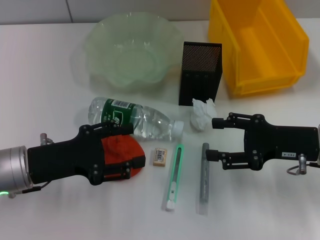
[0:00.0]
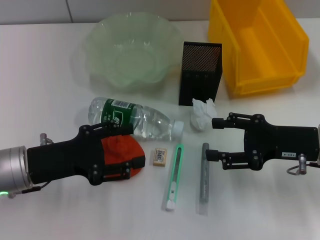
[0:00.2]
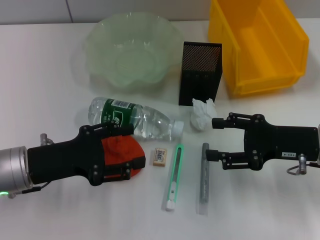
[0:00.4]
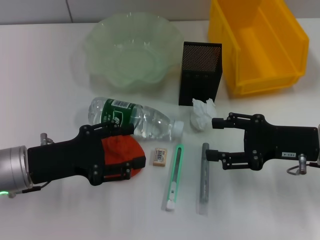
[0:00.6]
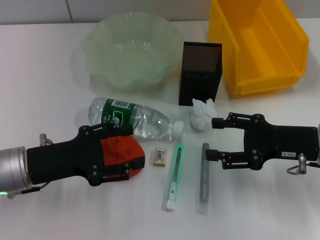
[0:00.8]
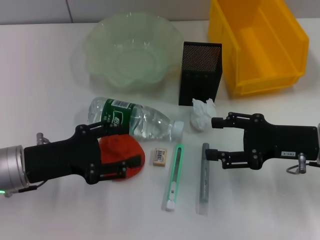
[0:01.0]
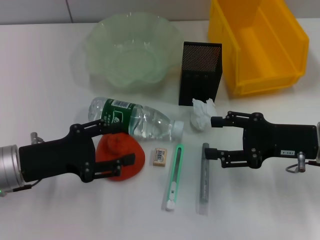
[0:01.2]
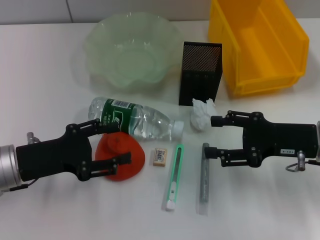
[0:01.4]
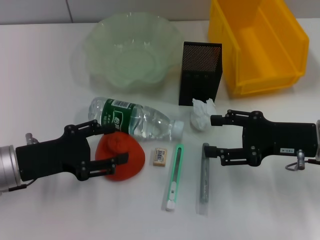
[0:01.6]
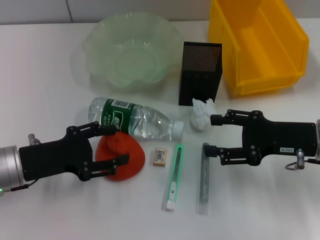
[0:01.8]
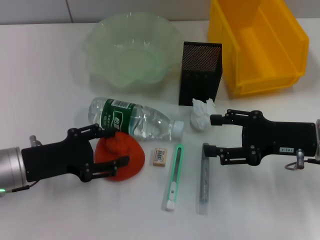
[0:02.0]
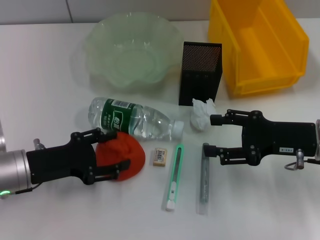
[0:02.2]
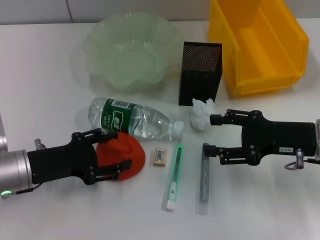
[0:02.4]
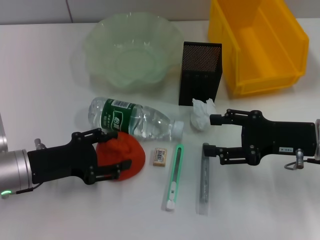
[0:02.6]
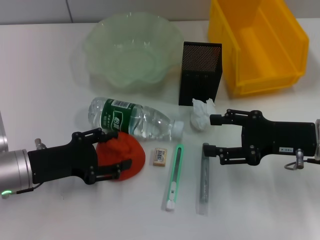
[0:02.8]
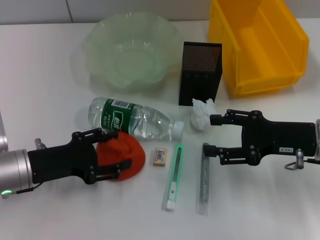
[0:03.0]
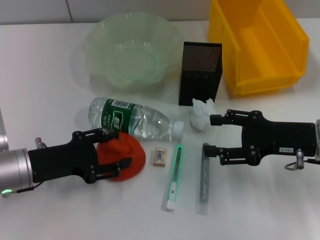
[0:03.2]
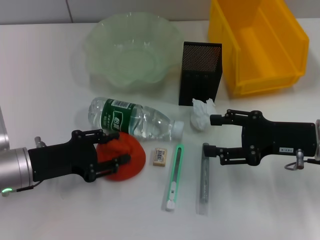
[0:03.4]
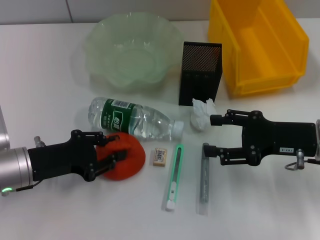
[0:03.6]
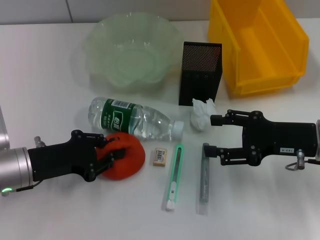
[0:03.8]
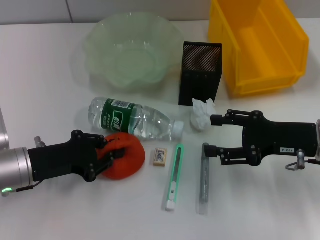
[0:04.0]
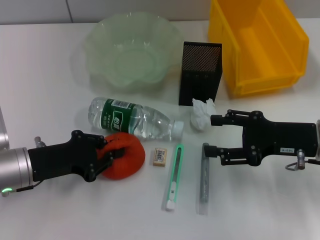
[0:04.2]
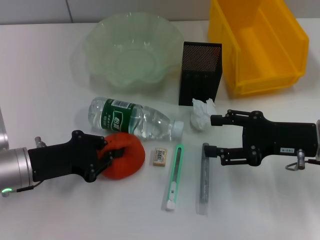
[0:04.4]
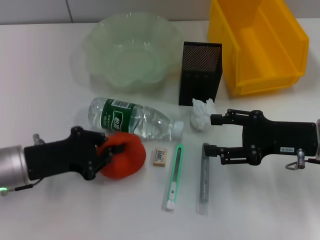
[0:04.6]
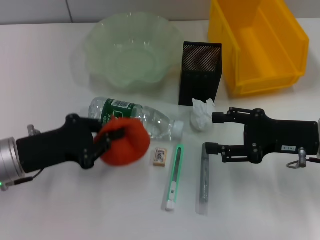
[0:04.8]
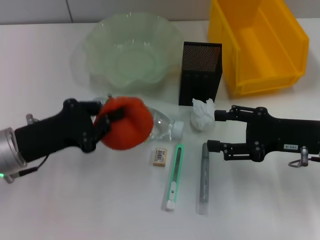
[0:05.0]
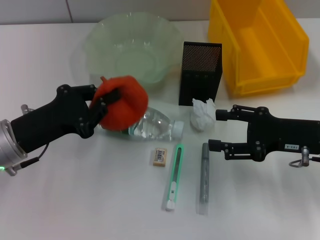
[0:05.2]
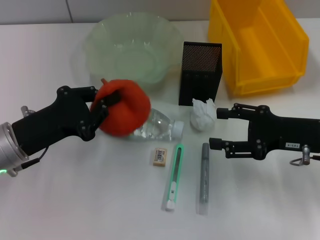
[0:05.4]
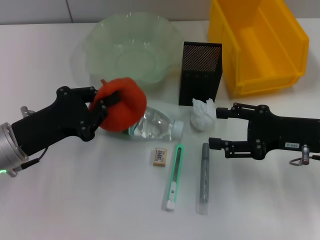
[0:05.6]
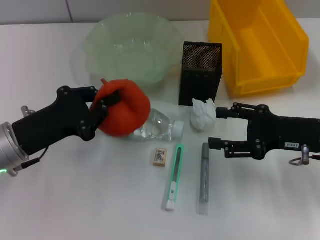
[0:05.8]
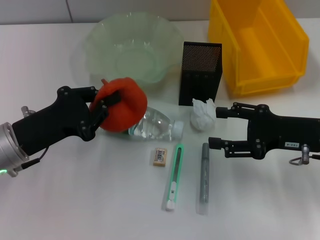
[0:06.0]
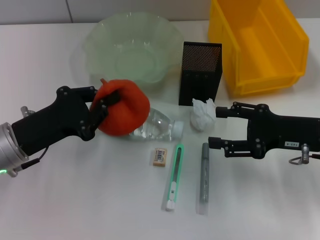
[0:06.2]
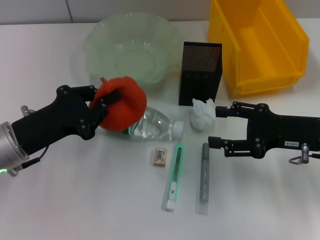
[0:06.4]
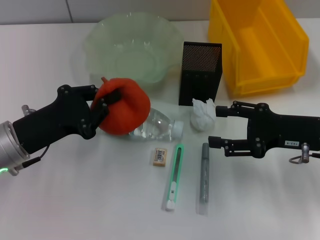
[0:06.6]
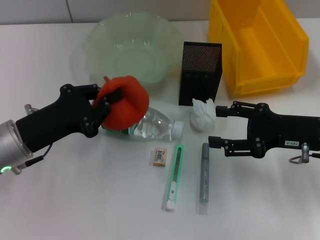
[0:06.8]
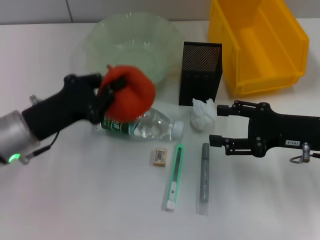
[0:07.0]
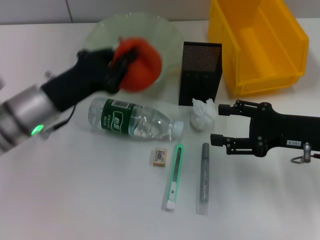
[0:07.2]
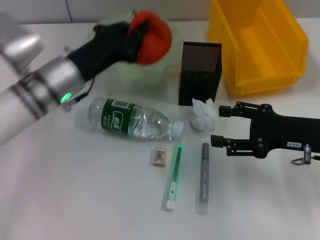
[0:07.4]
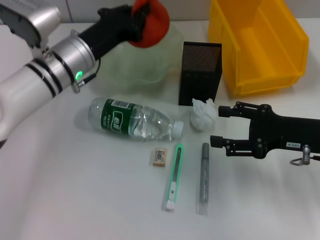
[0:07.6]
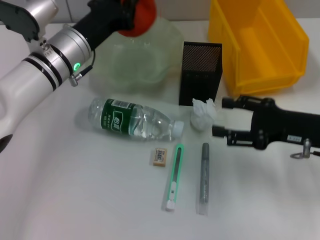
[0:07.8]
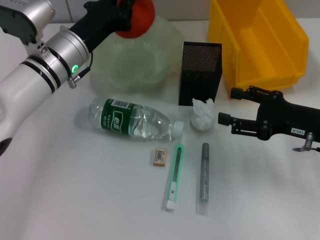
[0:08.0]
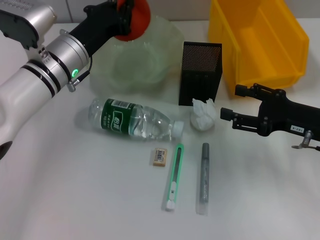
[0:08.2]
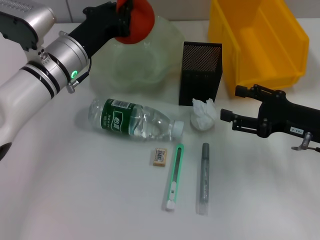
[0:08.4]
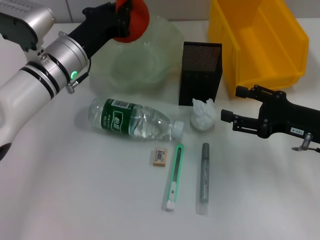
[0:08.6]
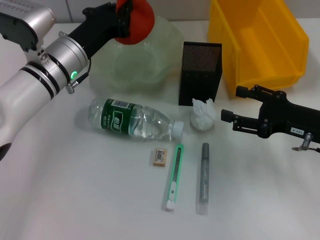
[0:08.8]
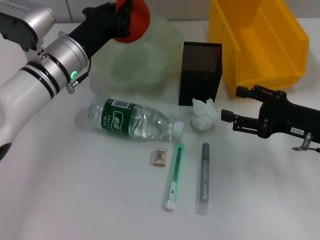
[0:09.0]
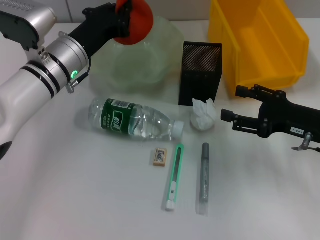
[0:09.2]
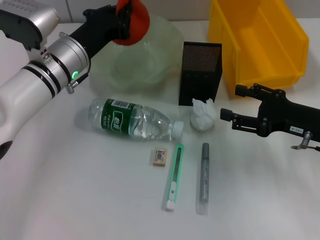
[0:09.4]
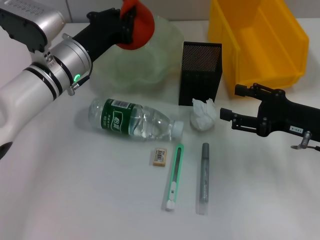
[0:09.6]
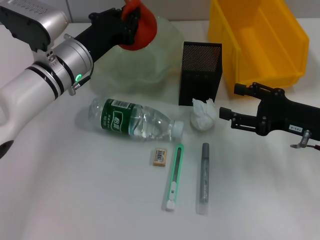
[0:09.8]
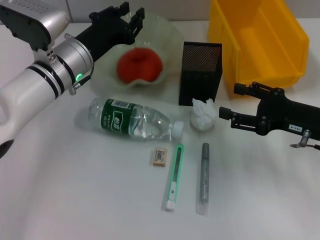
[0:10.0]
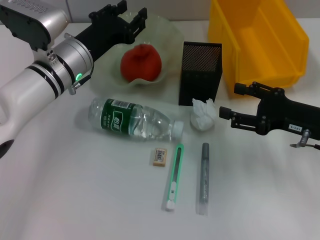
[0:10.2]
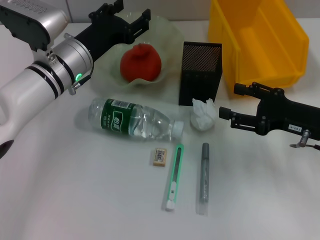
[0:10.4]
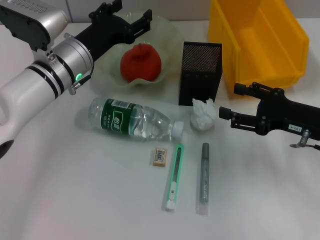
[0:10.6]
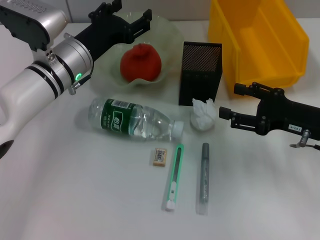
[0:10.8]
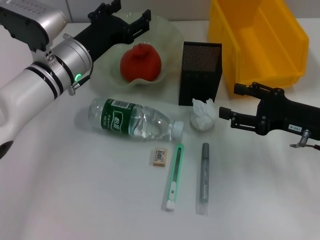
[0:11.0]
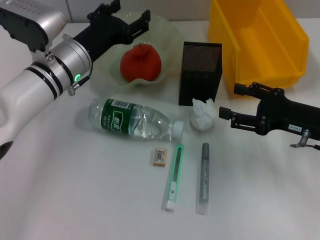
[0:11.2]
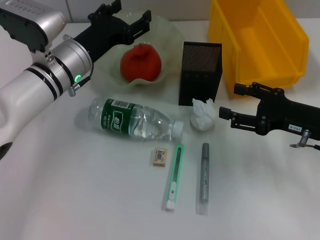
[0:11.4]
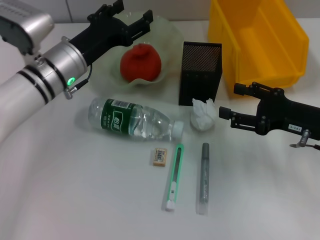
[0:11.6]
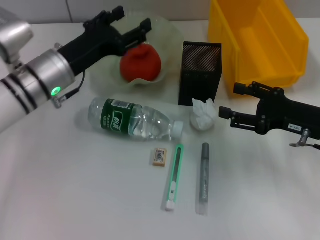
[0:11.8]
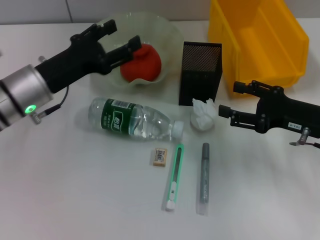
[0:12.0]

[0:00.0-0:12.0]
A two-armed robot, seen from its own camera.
Step, 0:00.0 to 0:03.8: Grab the orange with the left hand.
Step, 0:04.0 to 0:10.0: Place the orange into the fruit bowl with the left hand.
0:00.0 to 0:03.0: There are only small adjustments of the grippers.
0:03.0 to 0:04.4: The left gripper closes up.
0:06.0 to 0:07.6: The left gripper shifts approximately 15 cm forward and to the right.
0:07.6 to 0:09.0: The grippers stay close to where they were, moving slightly.
0:09.0 to 0:10.4: The left gripper opens its fingers.
0:10.4 to 0:12.0: The left gripper ends up about 5 cm from where it was.

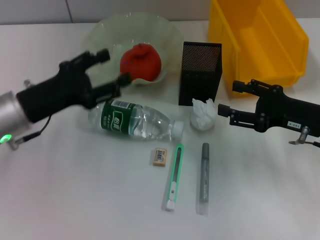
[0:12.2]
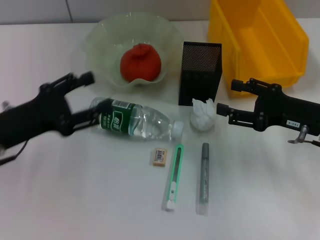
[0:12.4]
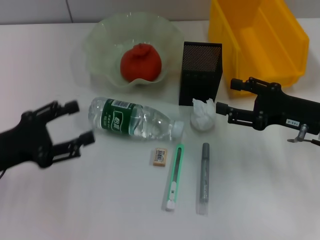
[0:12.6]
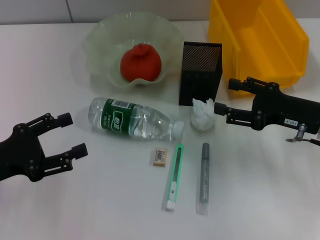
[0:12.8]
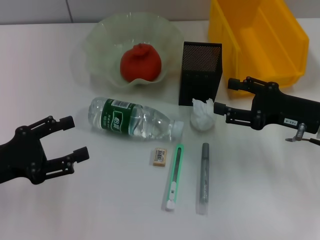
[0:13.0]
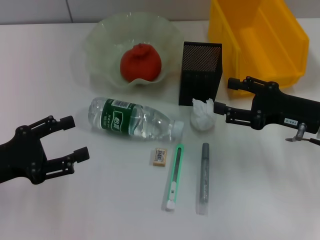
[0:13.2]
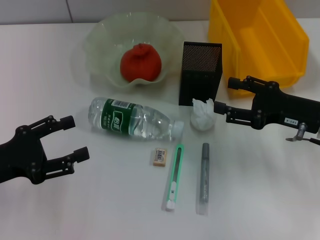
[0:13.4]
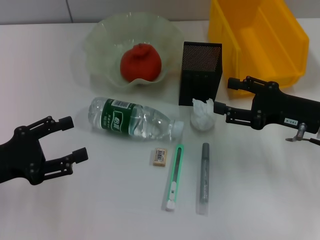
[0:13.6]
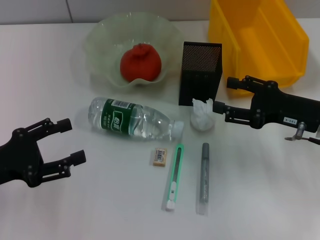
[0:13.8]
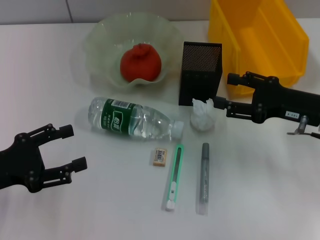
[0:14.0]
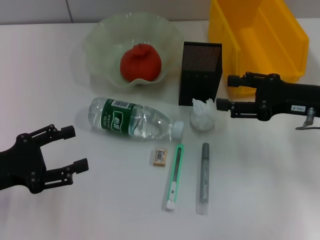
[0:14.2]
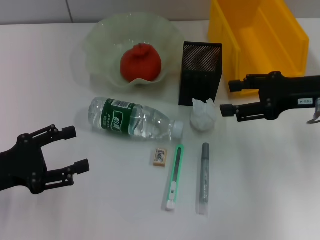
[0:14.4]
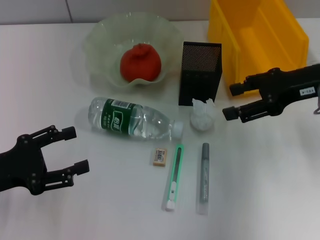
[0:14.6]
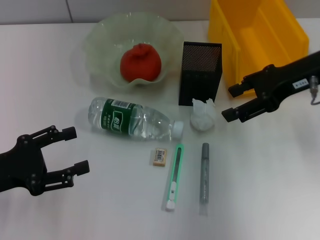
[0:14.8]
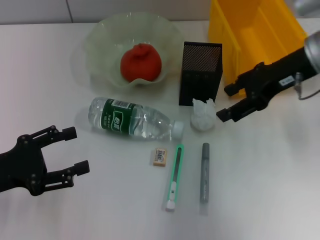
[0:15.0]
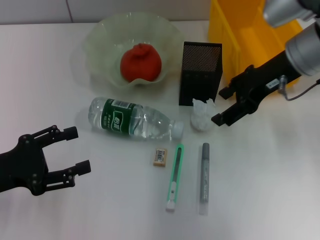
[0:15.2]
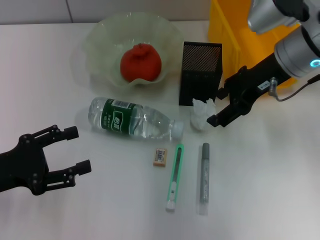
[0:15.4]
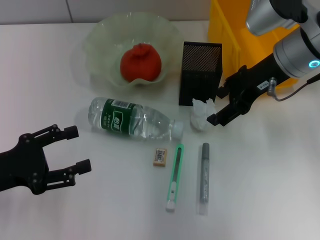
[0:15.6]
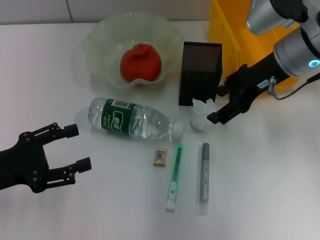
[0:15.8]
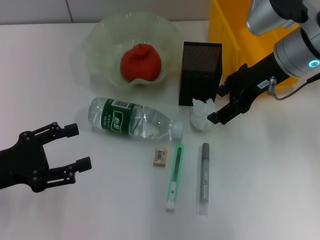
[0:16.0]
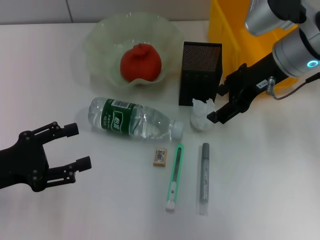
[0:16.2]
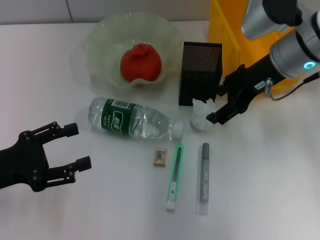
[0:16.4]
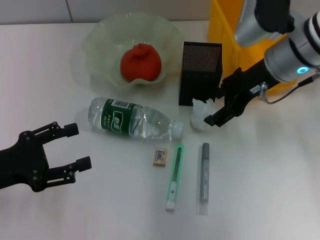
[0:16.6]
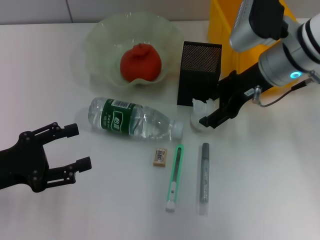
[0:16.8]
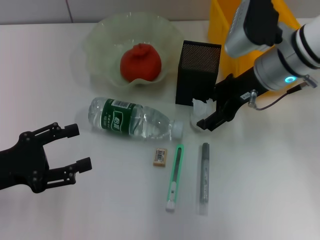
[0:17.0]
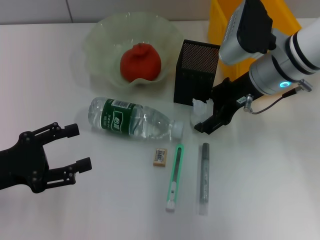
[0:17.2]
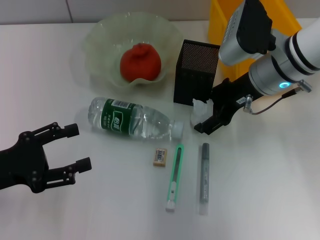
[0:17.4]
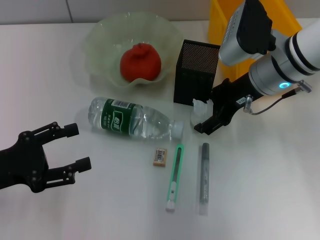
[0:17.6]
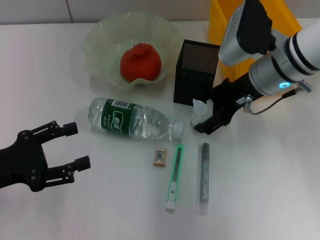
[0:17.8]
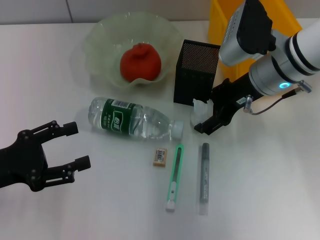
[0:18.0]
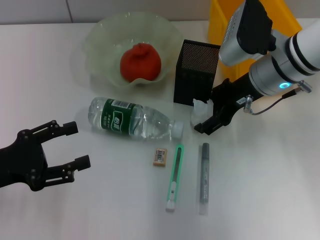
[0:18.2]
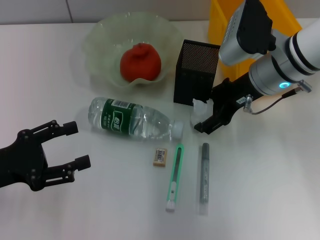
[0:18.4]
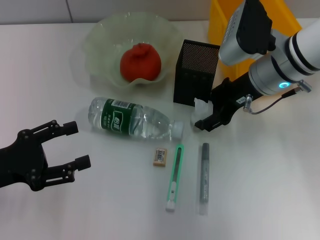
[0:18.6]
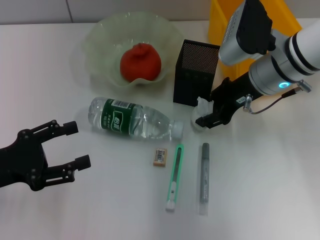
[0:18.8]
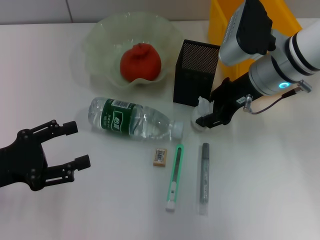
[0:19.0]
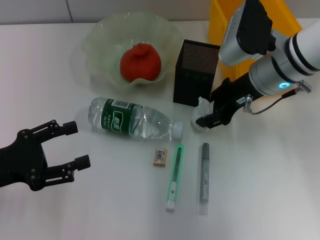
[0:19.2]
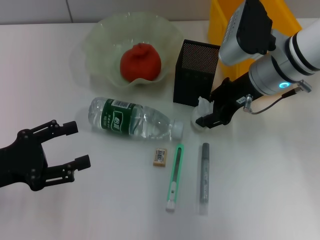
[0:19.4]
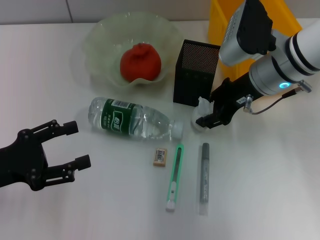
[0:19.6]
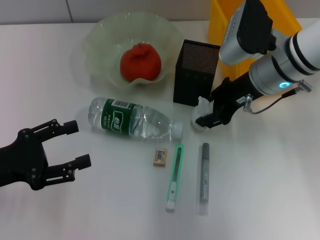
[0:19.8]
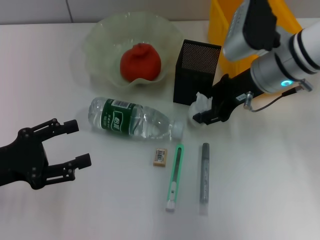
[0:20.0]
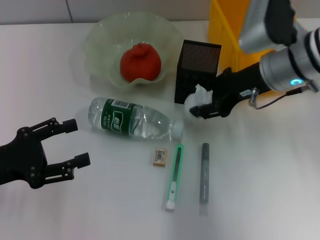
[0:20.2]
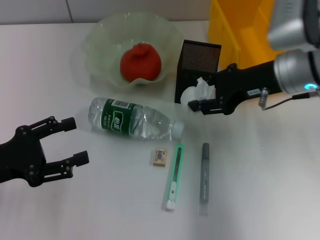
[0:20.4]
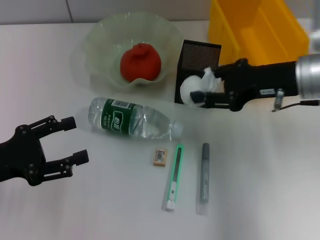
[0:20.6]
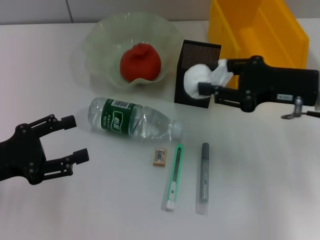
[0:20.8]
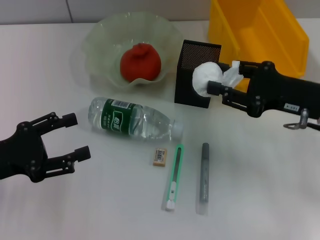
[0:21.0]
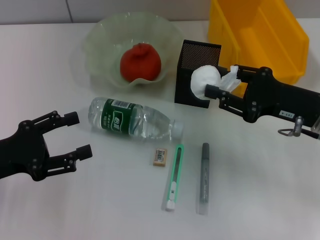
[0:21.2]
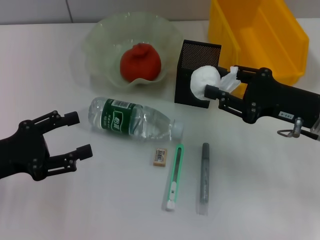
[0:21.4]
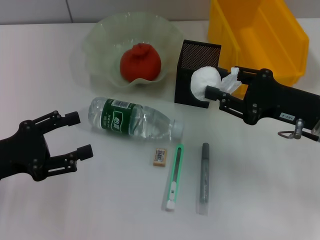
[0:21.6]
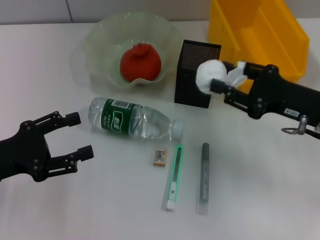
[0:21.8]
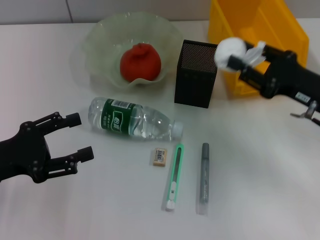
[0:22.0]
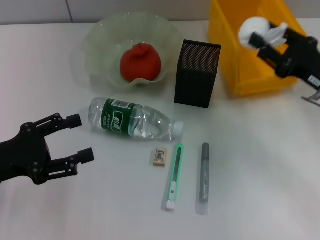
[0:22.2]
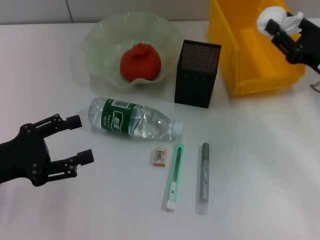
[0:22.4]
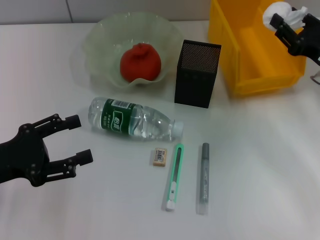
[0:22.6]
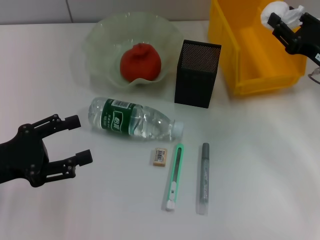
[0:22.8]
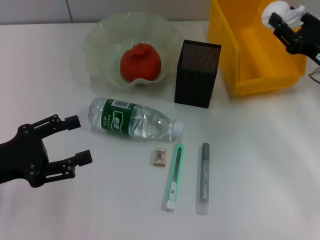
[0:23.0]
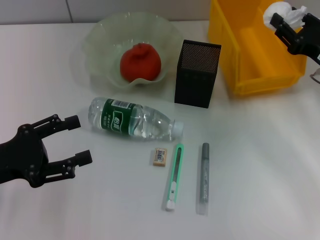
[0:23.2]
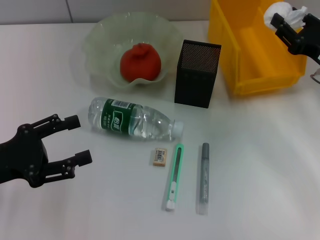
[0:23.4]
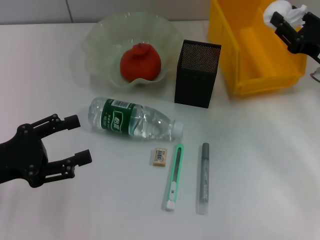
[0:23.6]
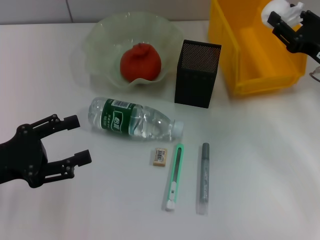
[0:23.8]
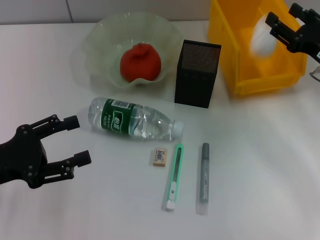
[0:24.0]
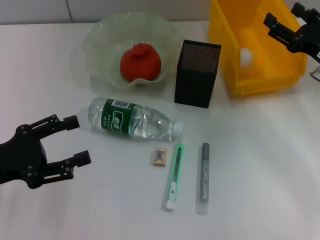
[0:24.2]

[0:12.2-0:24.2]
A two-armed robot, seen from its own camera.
Step, 0:12.2 to 0:19.0: Grab the paper ball with the right hand.
0:12.2 to 0:13.8: The left gripper goes roughly 10 cm backward and to the left.
0:13.8 to 0:15.2: The right gripper shifts roughly 15 cm upward, forward and to the left.
0:15.2 to 0:18.2: The grippers stay close to where they were, moving slightly.
0:18.2 to 0:19.8: The right gripper closes.
0:19.8 to 0:21.2: The right gripper travels to the right and backward by about 10 cm.
0:21.2 to 0:22.6: The right gripper ends up approximately 5 cm from where it was.
0:22.6 to 0:24.2: The right gripper opens its fingers.
